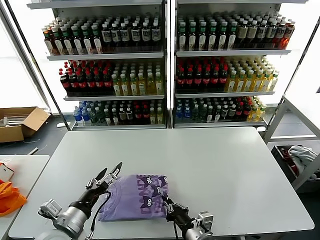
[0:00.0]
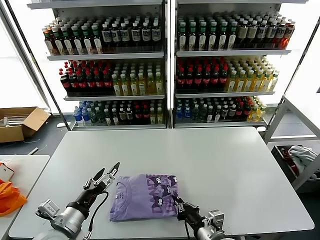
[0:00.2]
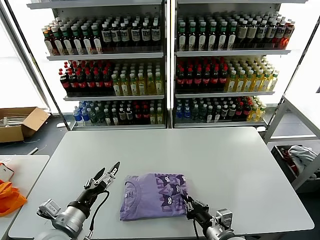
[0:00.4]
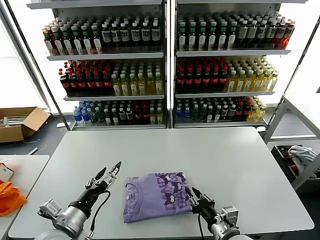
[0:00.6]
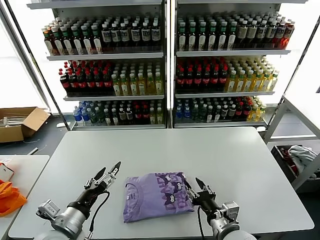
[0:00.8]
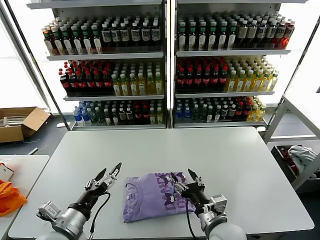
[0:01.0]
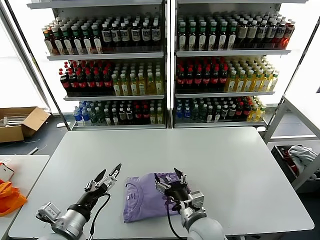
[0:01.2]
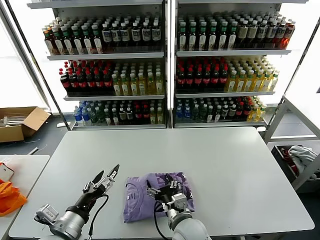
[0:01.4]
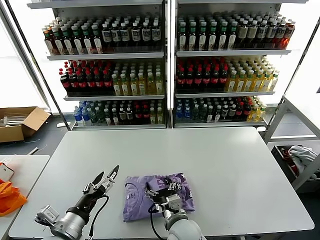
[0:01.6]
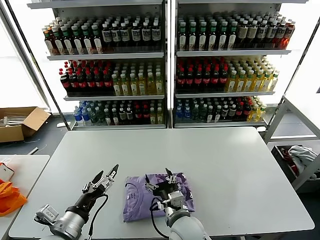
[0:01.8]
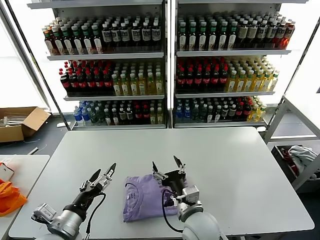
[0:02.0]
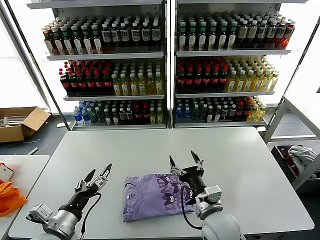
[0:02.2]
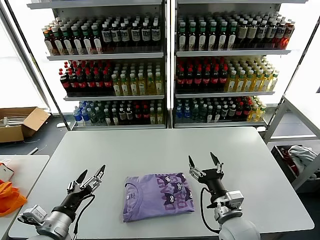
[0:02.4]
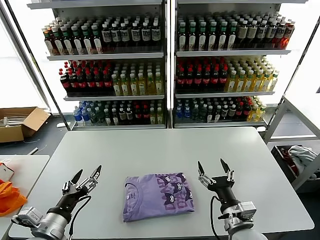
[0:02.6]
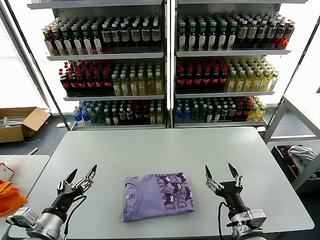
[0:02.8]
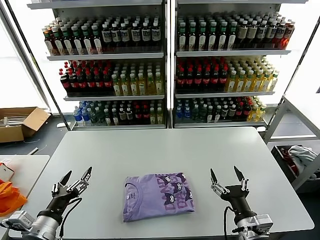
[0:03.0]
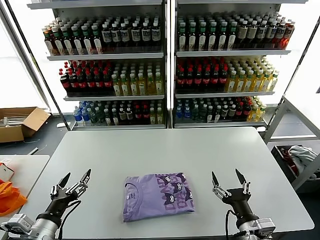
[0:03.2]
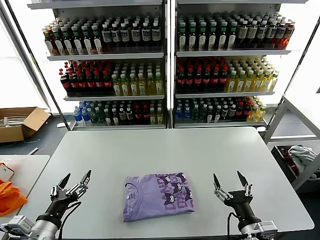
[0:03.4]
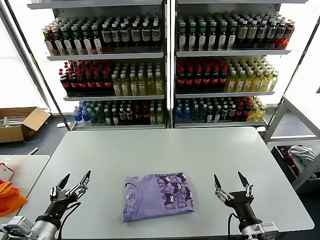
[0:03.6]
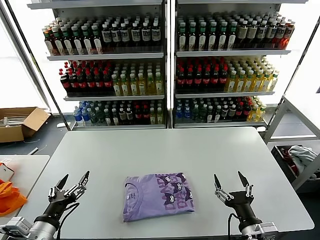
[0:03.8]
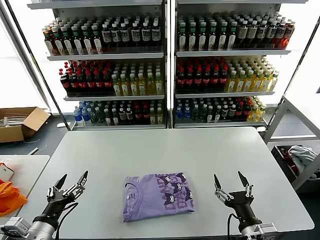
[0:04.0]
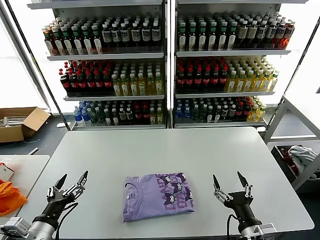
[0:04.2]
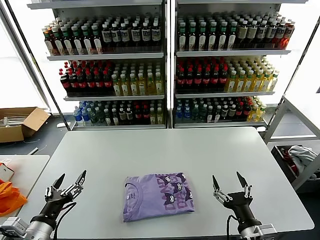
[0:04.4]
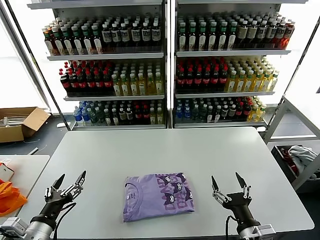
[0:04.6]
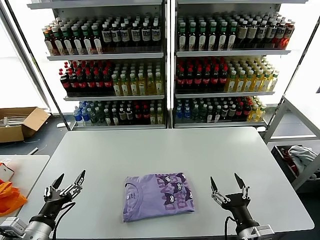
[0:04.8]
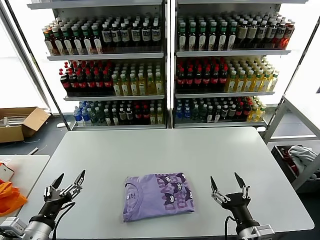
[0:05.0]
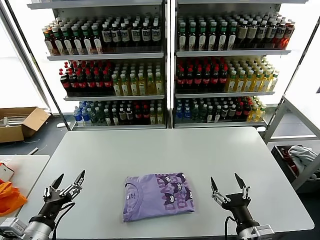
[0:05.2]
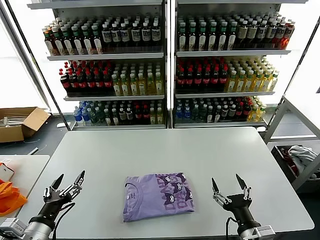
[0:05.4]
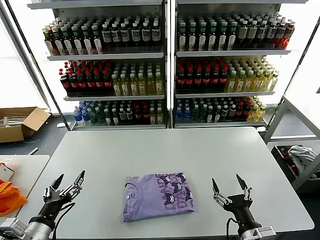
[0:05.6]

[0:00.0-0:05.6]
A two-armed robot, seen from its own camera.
Task of the whole recording: fold and organize the clothes.
0:00.0 to 0:01.4: The right gripper is displaced to the left and forward by roughly 10 cm, and opens.
0:01.4 to 0:02.8: The right gripper shifts approximately 15 cm to the right.
0:02.8 to 0:04.2: The grippers move only a little.
0:04.2 to 0:05.6: Both grippers stay put.
